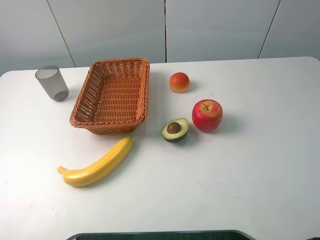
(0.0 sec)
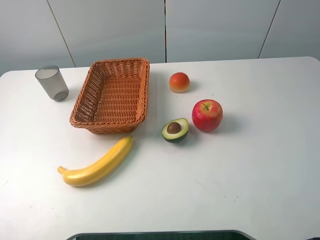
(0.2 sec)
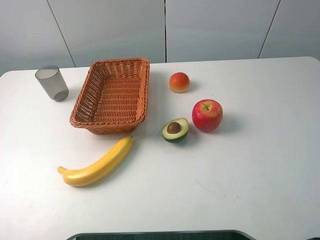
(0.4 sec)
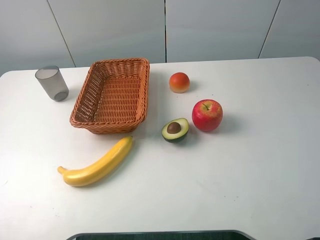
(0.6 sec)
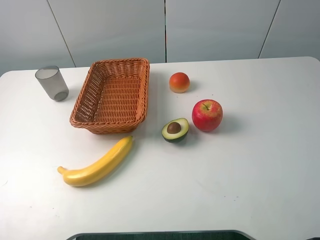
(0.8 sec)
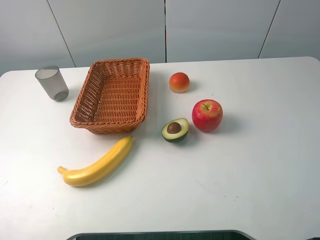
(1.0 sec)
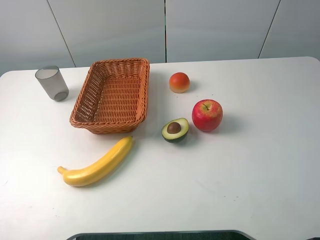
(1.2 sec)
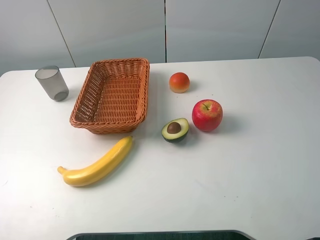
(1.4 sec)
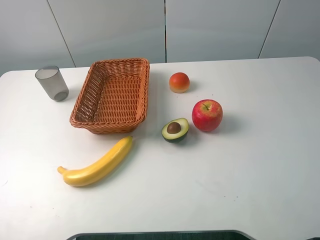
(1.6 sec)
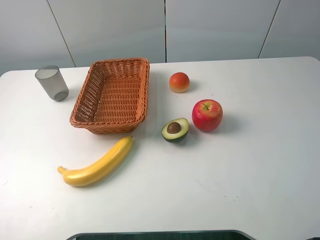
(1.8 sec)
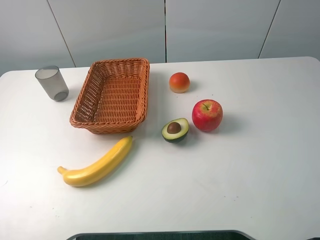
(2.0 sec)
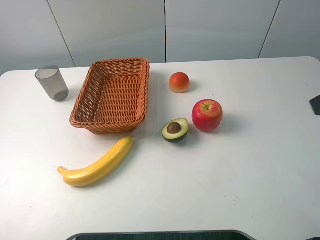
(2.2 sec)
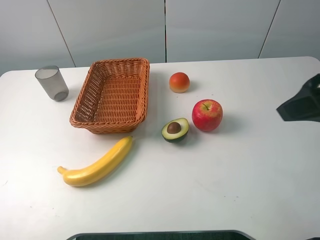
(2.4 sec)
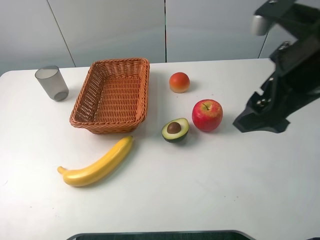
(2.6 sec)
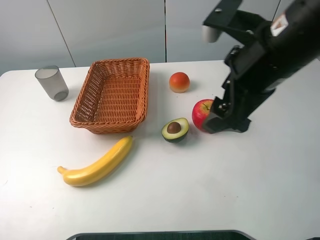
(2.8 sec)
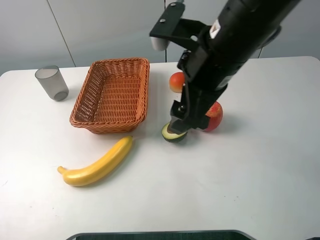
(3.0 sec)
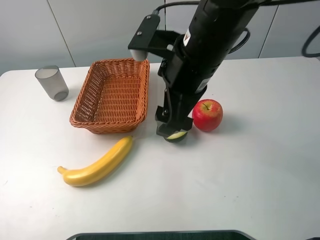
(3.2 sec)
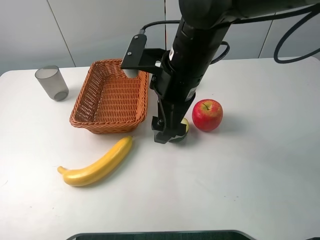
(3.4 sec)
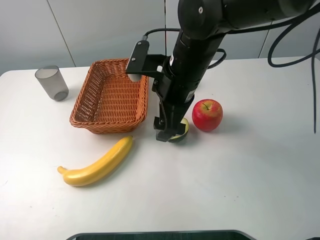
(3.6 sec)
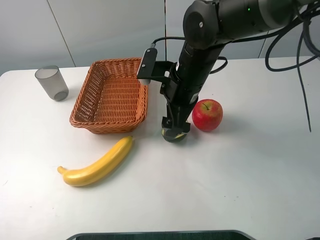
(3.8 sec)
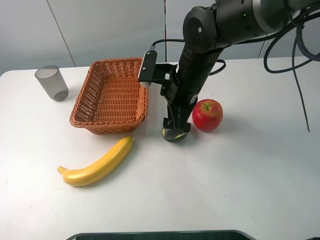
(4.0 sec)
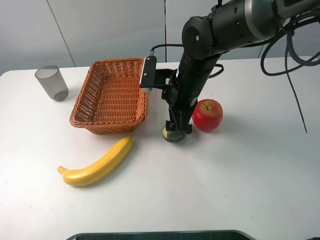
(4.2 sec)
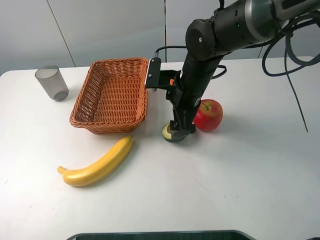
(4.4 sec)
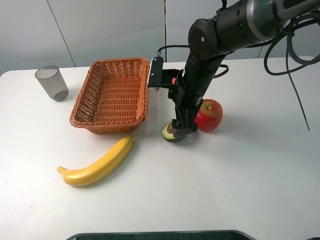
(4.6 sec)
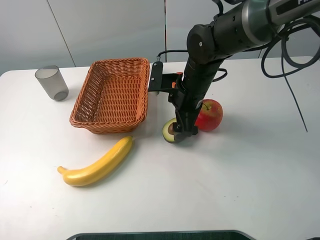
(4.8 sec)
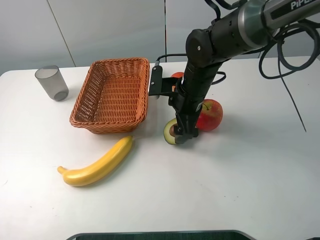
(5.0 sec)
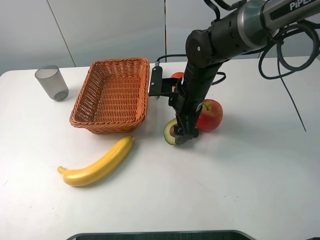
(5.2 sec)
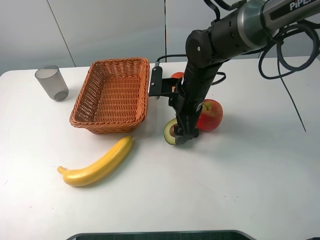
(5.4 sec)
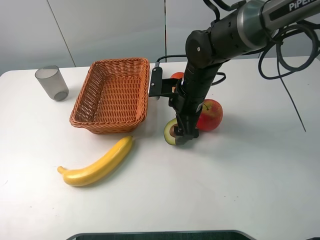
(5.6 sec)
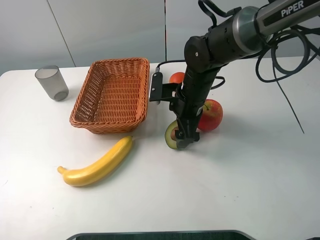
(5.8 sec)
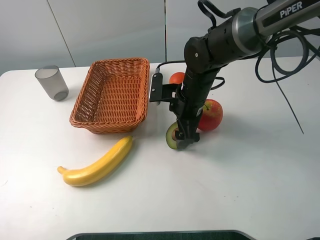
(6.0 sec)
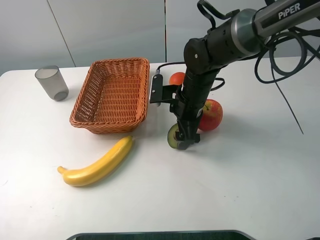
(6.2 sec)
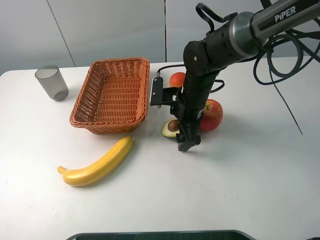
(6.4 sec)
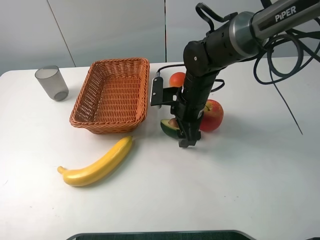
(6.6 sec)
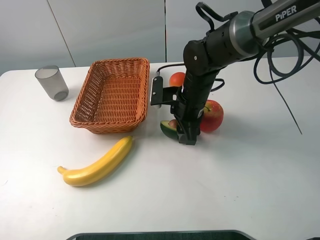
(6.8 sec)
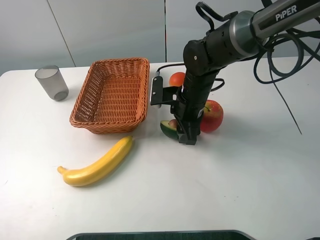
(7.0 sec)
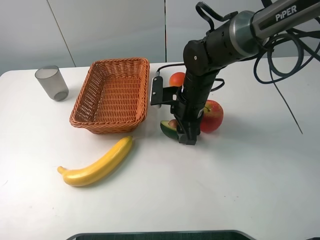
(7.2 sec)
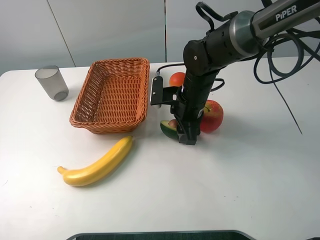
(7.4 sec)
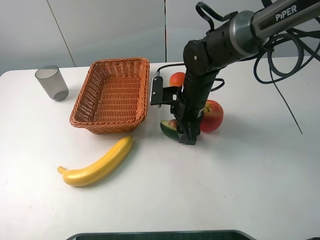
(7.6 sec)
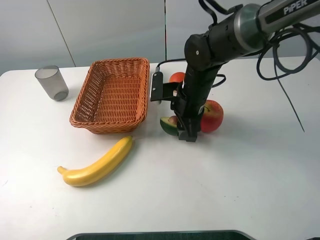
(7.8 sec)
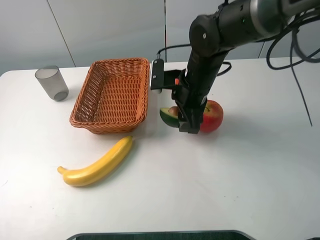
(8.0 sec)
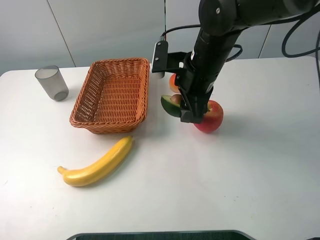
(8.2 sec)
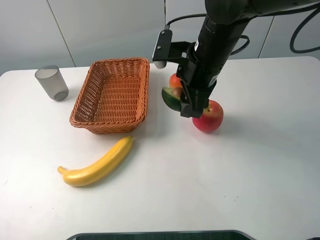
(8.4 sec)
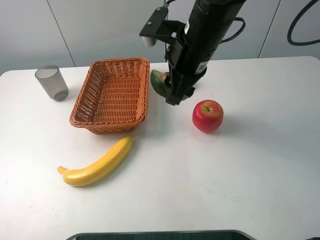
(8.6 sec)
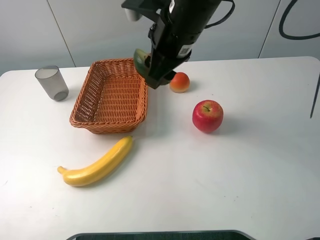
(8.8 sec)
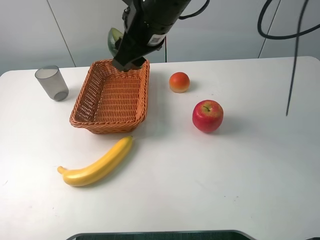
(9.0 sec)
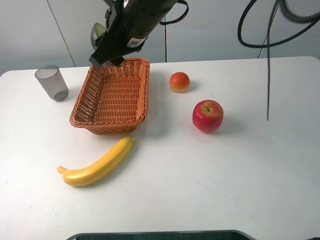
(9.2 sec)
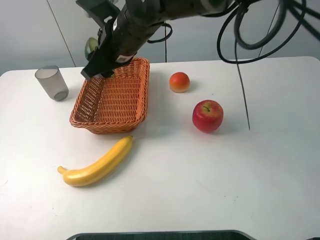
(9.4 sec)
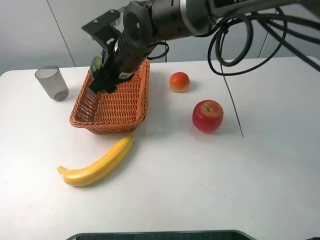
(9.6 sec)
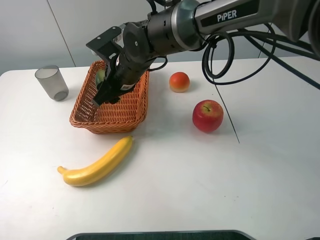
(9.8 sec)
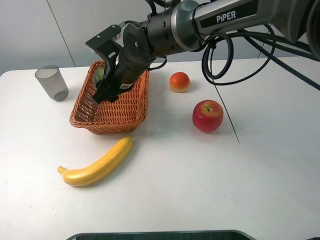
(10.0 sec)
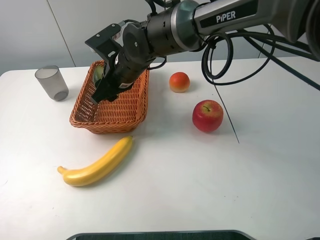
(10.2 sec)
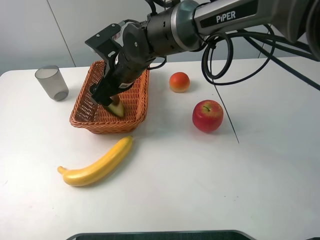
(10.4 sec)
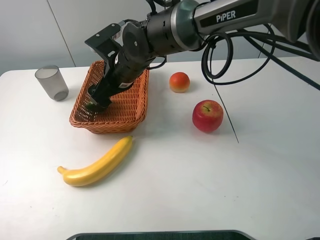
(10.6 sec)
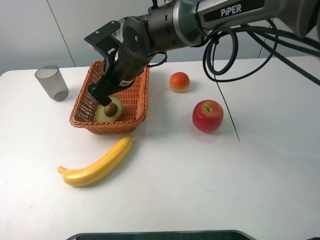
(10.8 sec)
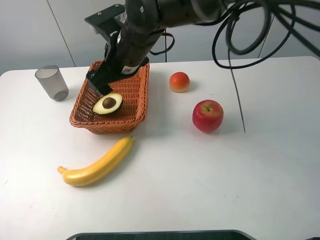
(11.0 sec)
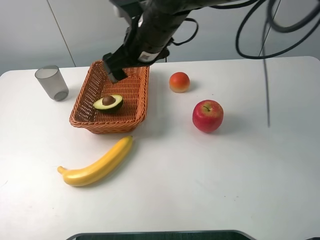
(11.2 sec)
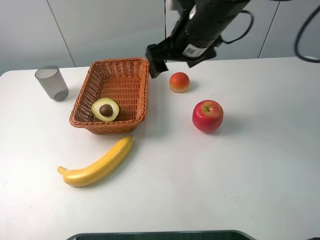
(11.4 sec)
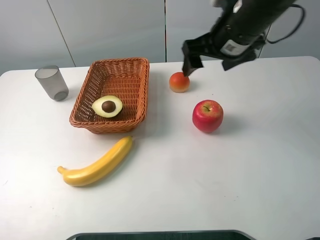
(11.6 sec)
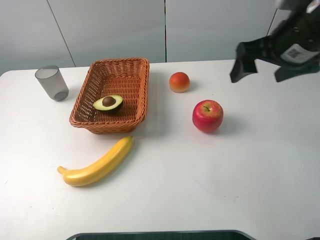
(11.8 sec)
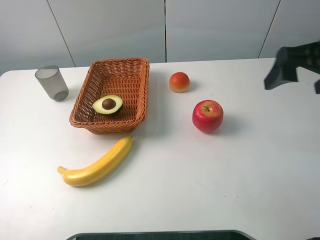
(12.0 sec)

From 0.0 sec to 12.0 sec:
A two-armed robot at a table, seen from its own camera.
From 0.0 sec to 1.6 sec: Both grippers stay put.
From 1.6 sec to 3.0 sec: The right gripper is displaced to the left and forward by approximately 30 cm.
From 3.0 sec to 4.4 sec: The right gripper heads downward and forward, covering about 15 cm.
From 4.4 sec to 6.0 sec: The grippers stay close to where they were, moving slightly.
From 6.0 sec to 7.6 sec: The right gripper closes.
From 7.6 sec to 9.0 sec: The right gripper moves upward and to the left, roughly 20 cm.
From 9.0 sec to 10.4 sec: The right gripper heads downward and to the left, covering roughly 15 cm, and opens.
From 10.4 sec to 12.0 sec: The right gripper moves to the right, approximately 35 cm.

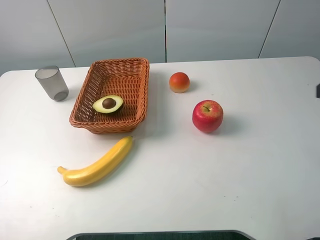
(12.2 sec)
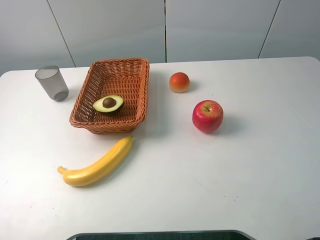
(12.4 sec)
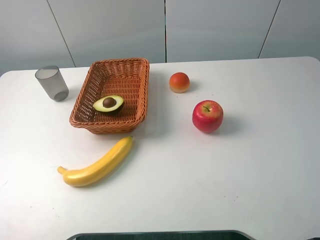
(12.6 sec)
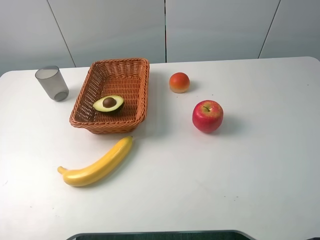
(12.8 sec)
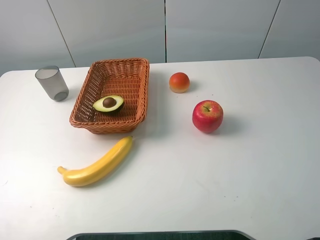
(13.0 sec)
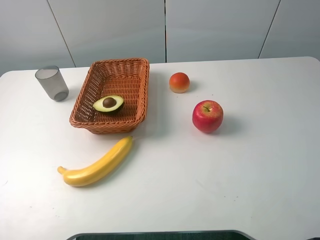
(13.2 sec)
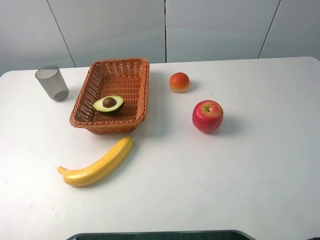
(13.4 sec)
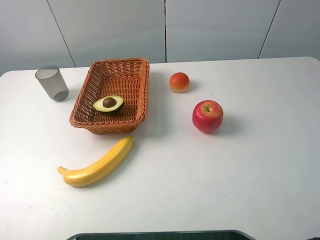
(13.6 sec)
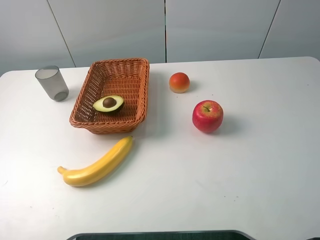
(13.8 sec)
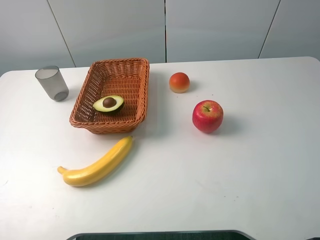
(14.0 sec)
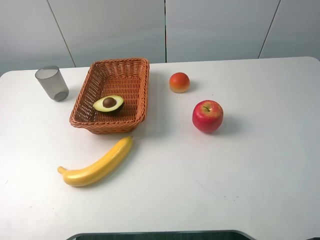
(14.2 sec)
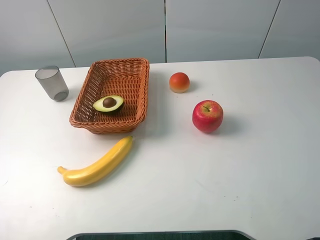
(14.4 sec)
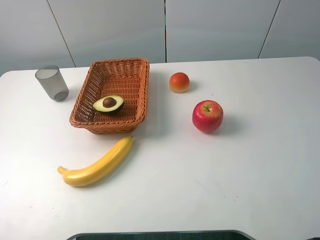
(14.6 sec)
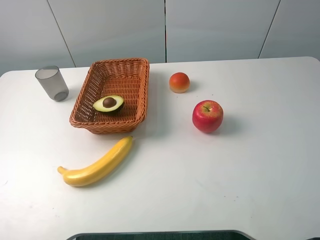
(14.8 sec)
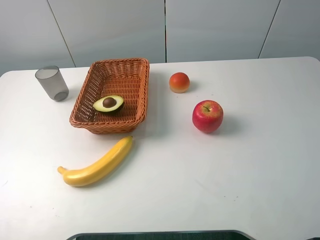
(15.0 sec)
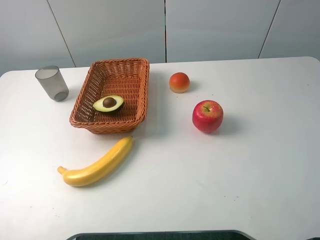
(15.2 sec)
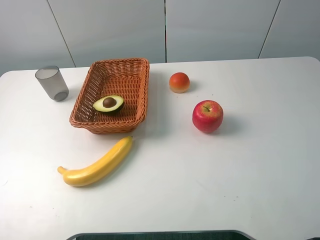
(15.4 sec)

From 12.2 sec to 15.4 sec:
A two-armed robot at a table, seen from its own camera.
From 13.8 sec to 15.4 sec: Both grippers stay about where they are.
